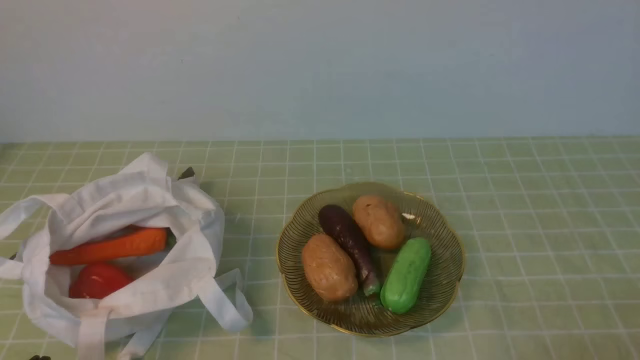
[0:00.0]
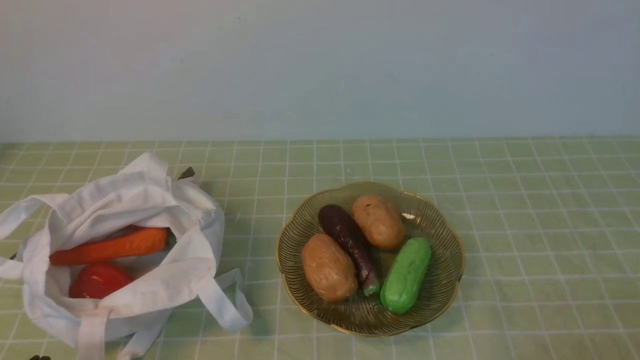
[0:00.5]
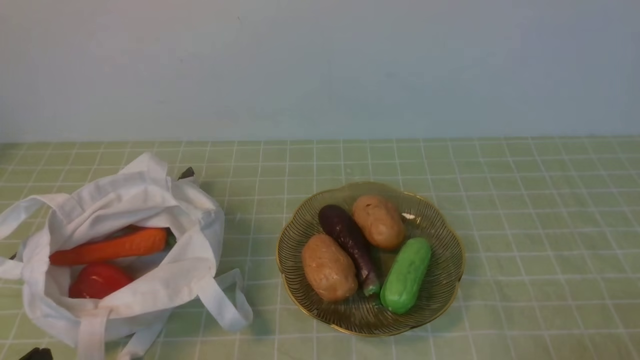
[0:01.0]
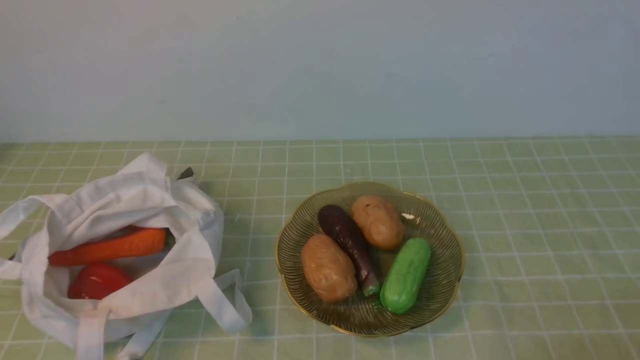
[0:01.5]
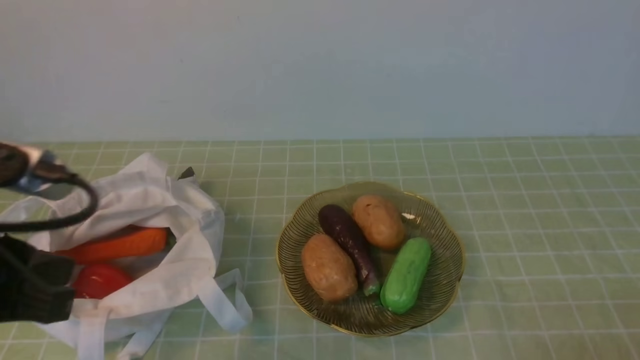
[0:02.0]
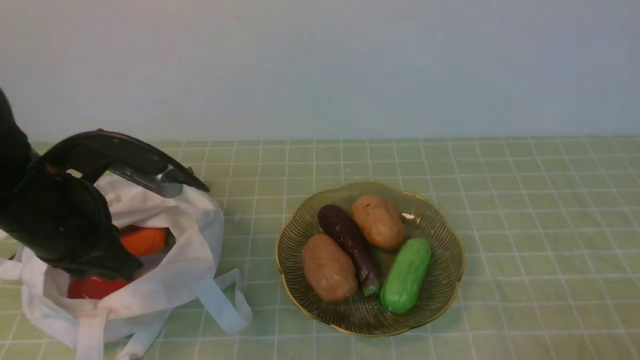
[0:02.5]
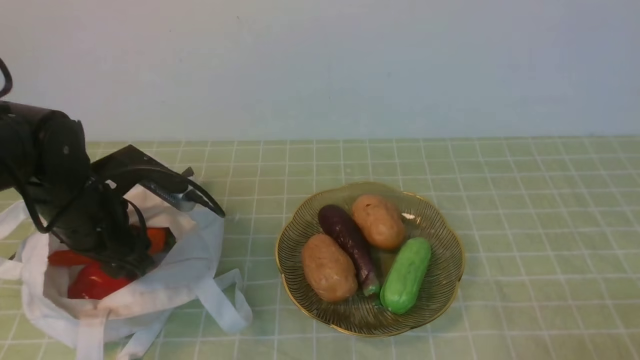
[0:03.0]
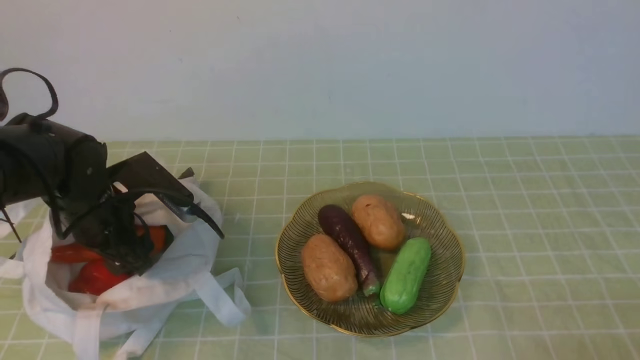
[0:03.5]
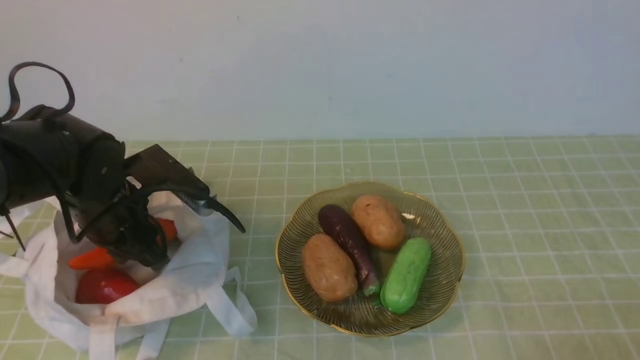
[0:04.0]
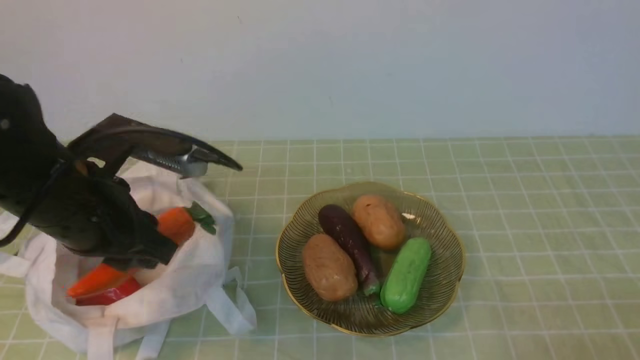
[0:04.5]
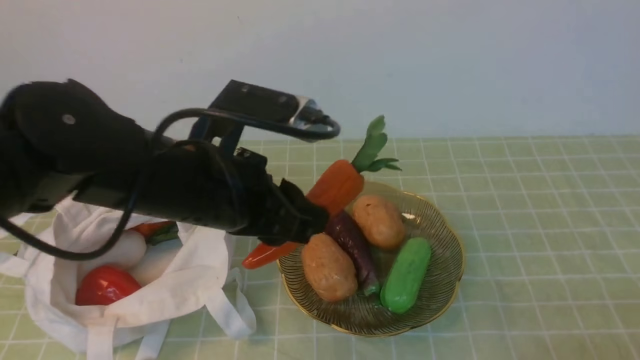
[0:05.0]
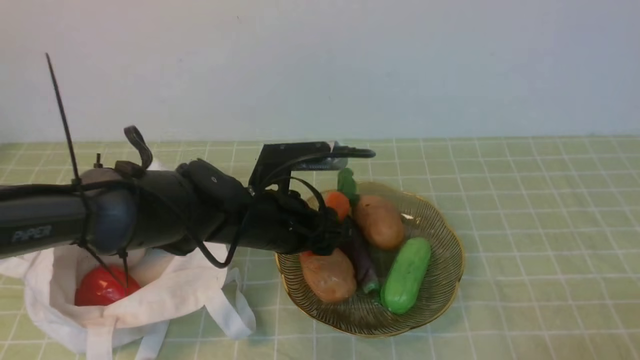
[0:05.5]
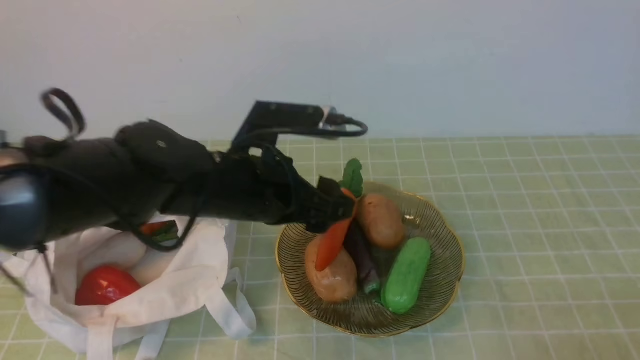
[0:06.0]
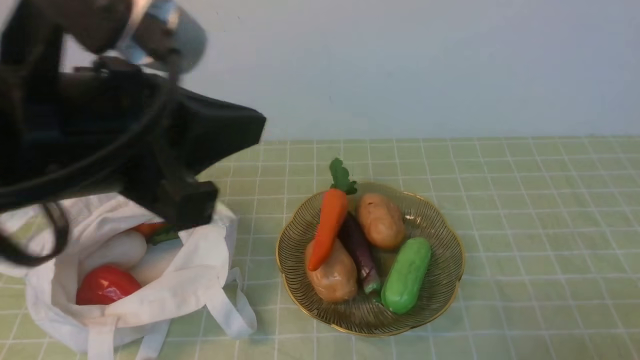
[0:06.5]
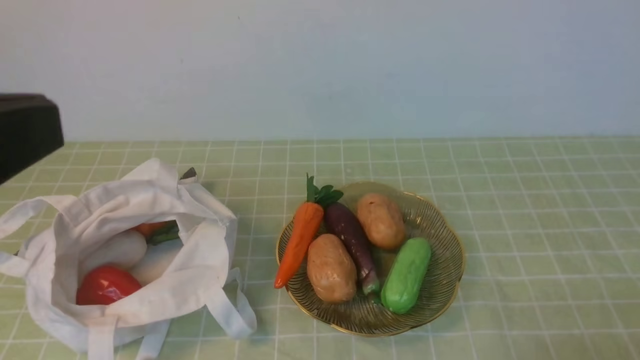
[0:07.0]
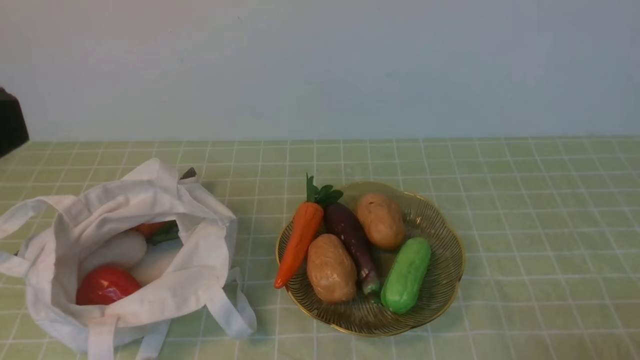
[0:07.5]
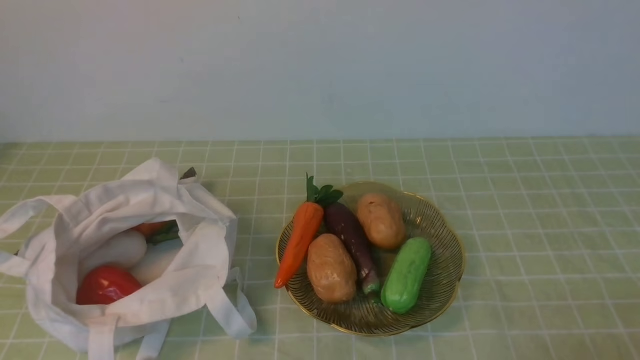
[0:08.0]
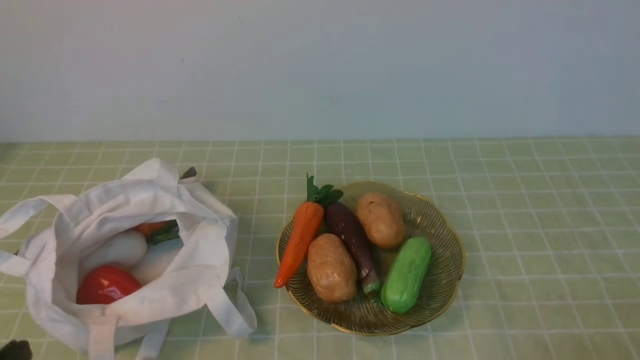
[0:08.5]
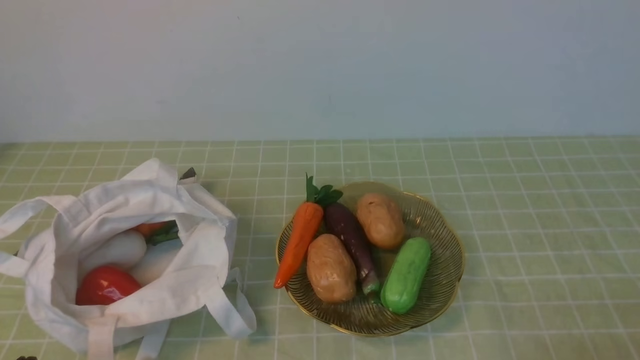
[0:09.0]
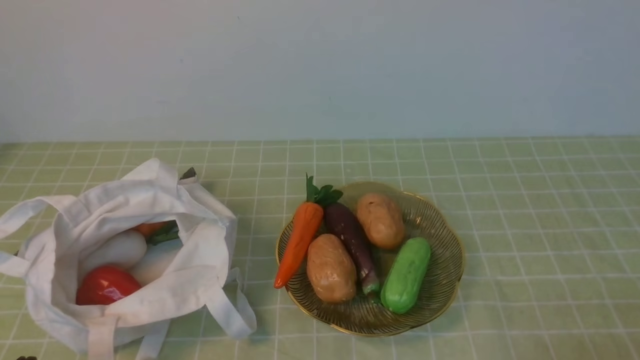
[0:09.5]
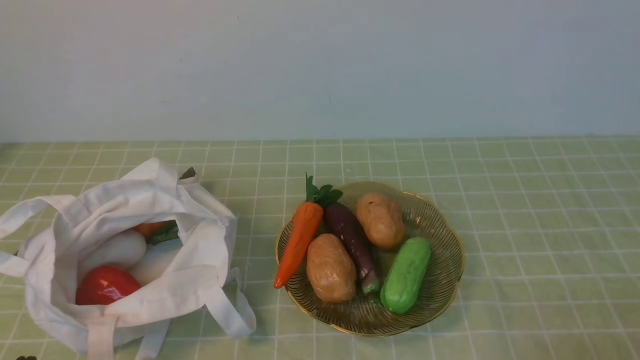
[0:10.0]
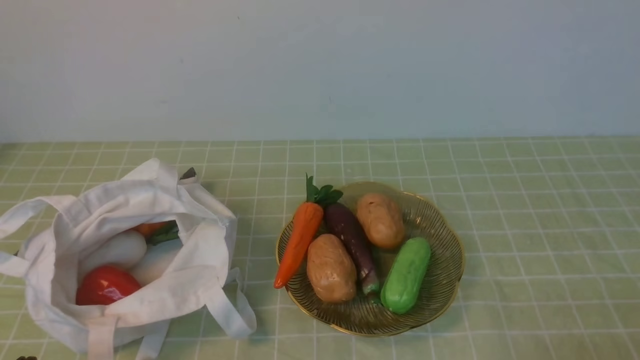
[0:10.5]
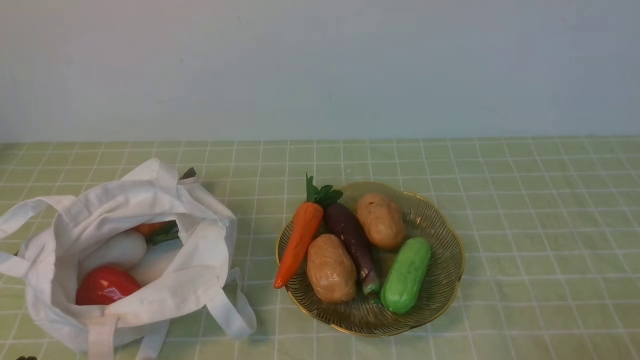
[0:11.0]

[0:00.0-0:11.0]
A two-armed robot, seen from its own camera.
Task of the whole recording: take vegetables from bag on green coffee tablecloth place on plate.
Step, 0:00.0 to 0:03.5: Grasp the carrot with left gripper.
Step, 0:04.0 to 0:05.5: Place the carrot on the plate with left gripper.
0:00.0 to 0:02.0: The left gripper moves upward and forward, some 20 cm.
0:02.0 to 0:03.5: The left gripper is displaced forward and downward by approximately 25 cm, and opens up.
0:03.5 to 0:05.5: The left gripper goes approximately 15 cm to the right, and closes and opens again.
0:05.5 to 0:07.5: The left gripper is displaced backward, upward and to the left by about 40 cm, and closes its fingers.
0:07.5 to 0:09.0: The left gripper heads downward, covering about 25 cm.
0:09.0 to 0:11.0: Both grippers stay about where they are.
